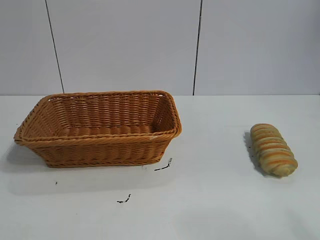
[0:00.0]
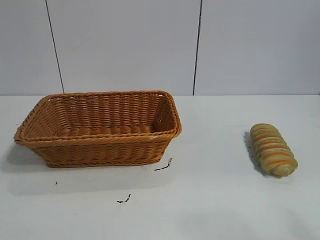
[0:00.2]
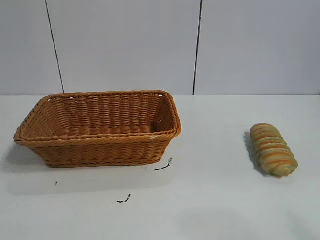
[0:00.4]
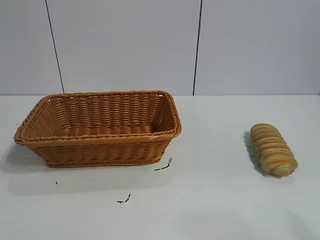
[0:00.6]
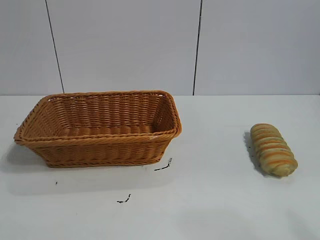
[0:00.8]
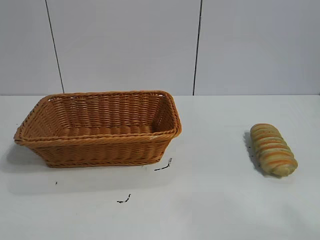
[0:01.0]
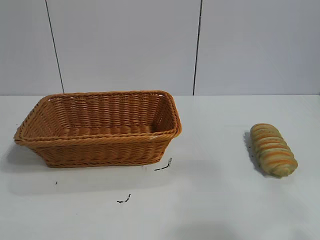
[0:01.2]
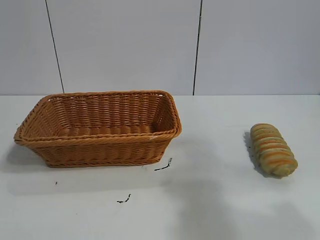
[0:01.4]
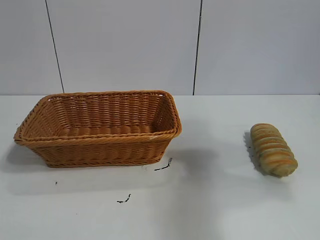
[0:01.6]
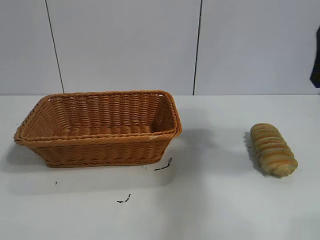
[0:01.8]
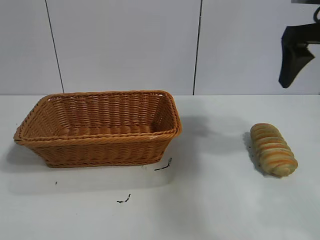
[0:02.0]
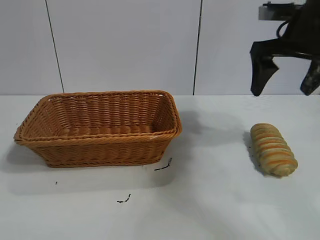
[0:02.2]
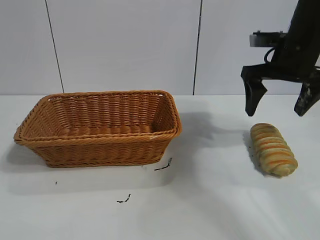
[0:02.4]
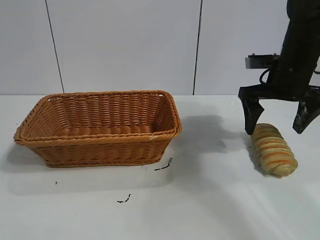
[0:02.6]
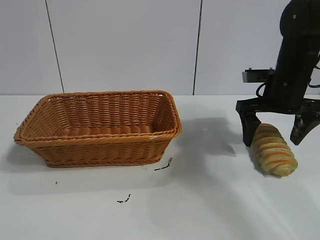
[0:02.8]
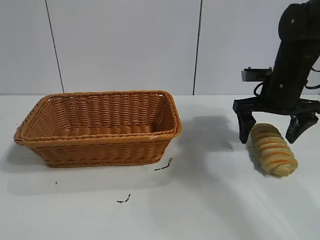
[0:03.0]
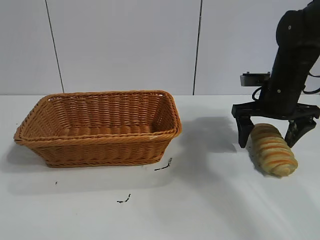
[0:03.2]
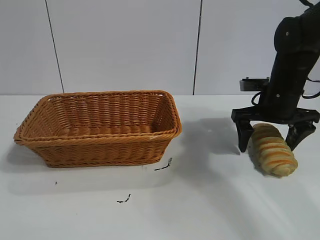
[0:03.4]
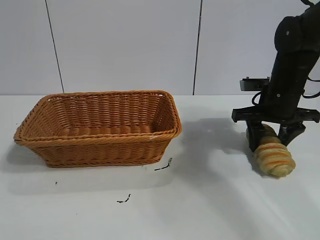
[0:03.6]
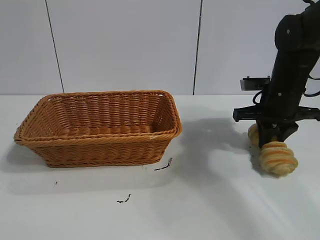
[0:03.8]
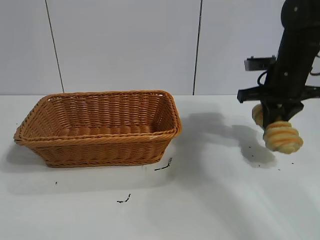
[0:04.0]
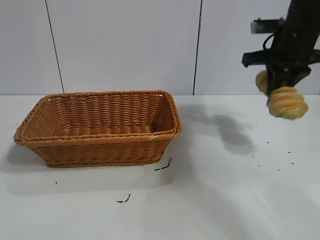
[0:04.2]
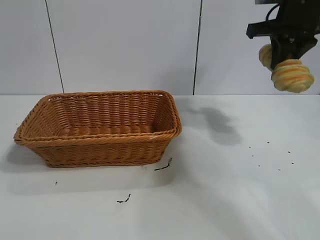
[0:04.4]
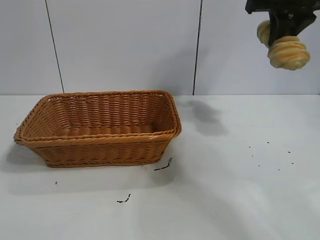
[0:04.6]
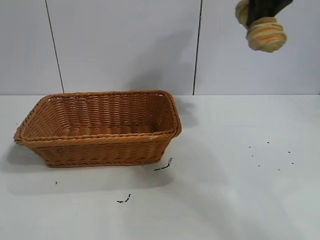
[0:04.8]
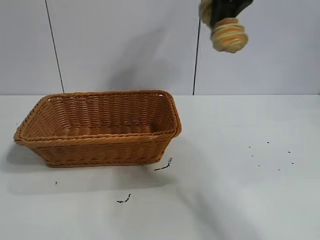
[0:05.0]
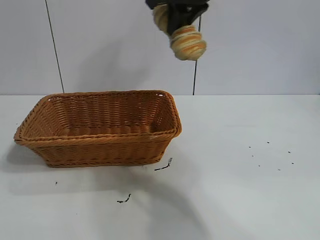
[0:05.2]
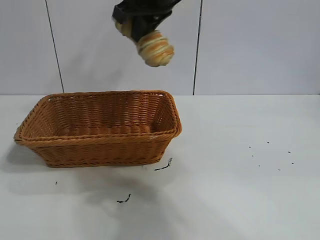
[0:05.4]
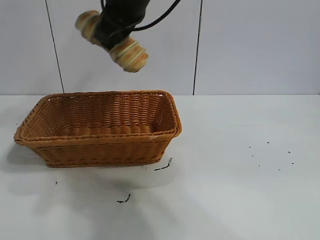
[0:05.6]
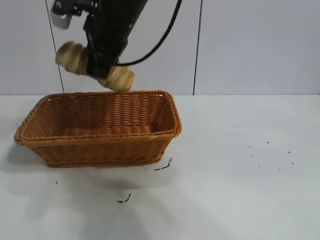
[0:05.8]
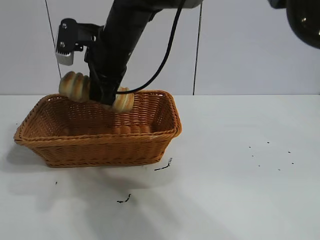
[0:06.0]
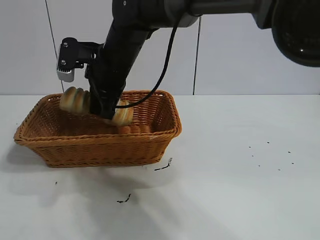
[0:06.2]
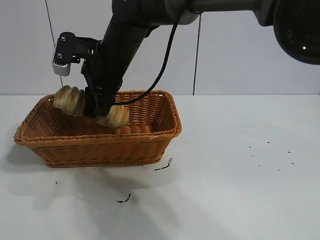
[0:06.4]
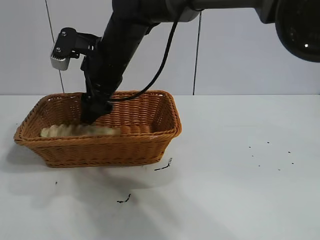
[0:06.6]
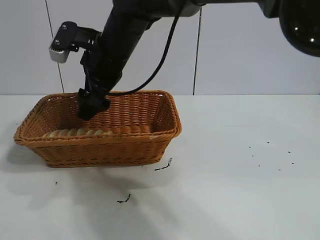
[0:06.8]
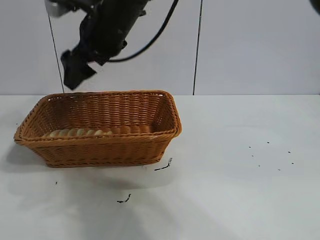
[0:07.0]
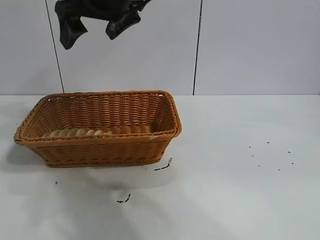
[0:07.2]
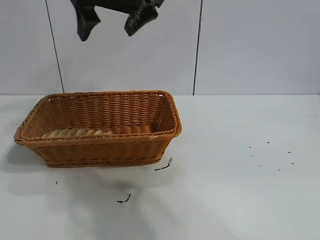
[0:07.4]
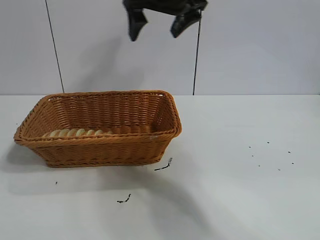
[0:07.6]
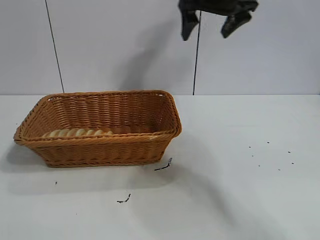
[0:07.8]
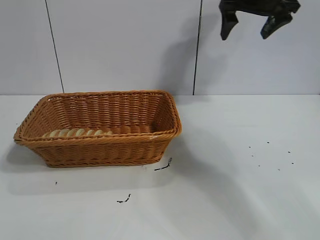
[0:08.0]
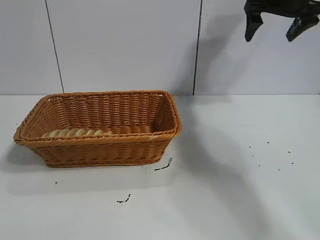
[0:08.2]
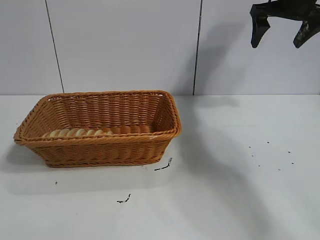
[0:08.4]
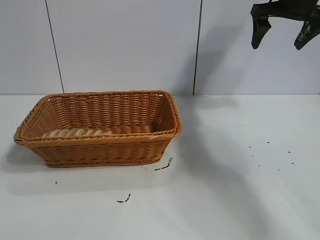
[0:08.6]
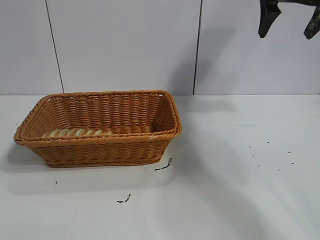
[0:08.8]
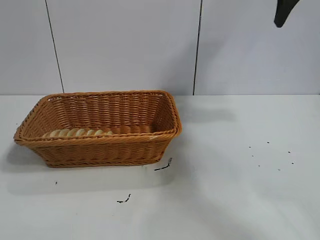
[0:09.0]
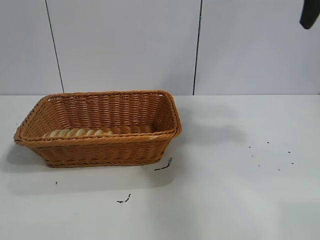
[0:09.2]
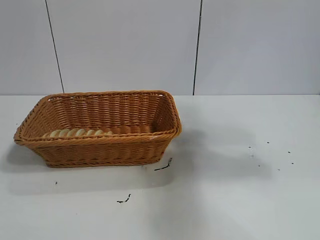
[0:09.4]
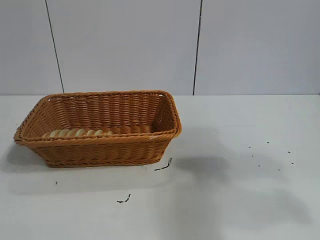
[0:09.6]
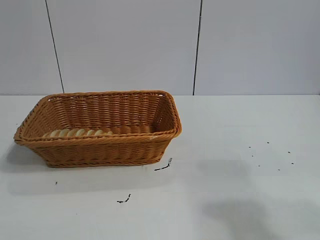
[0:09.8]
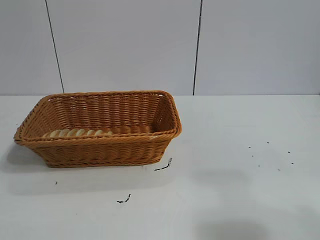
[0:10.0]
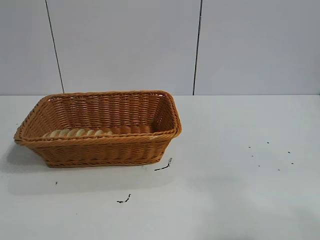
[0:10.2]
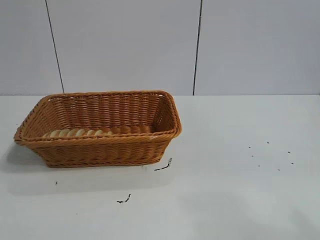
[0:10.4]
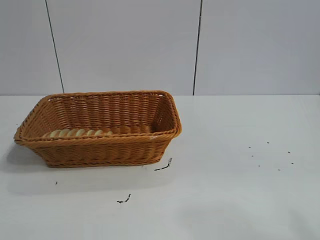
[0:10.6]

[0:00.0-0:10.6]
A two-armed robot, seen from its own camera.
Task of the whole recording: pick up the long bread and put it into the basket.
Step, 0:01.8 to 0:03.8: Grasp the long bread with right gripper.
Step, 0:04.0 to 0:07.0: Place the long bread in the basket with right gripper.
